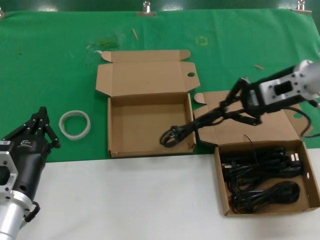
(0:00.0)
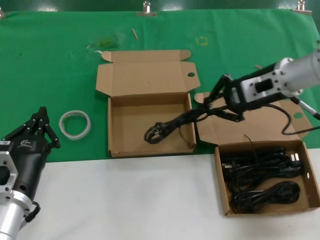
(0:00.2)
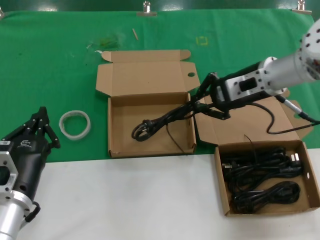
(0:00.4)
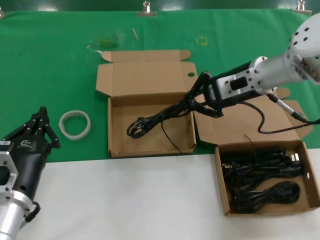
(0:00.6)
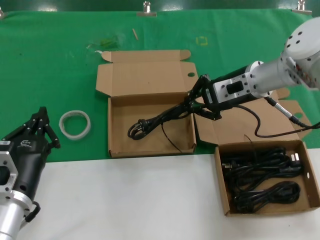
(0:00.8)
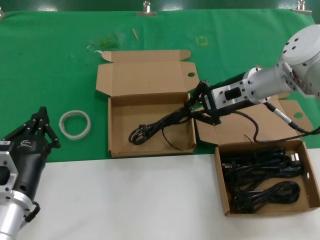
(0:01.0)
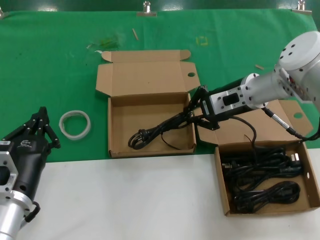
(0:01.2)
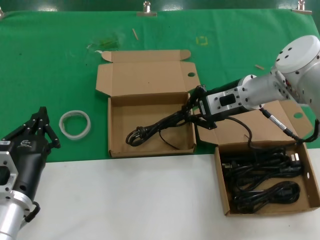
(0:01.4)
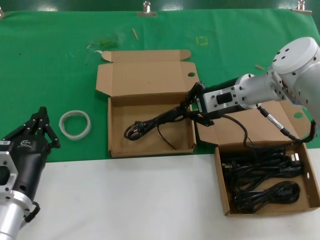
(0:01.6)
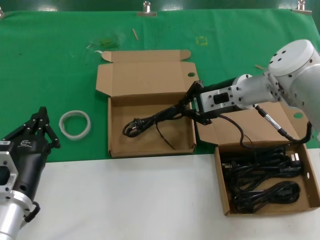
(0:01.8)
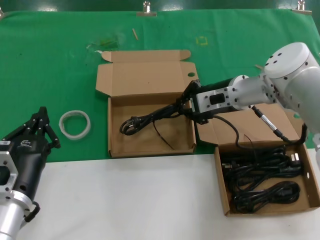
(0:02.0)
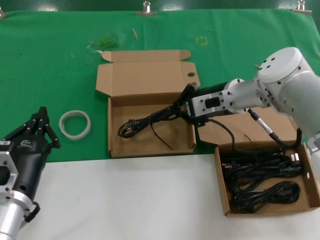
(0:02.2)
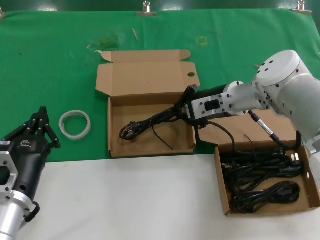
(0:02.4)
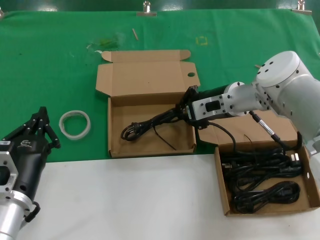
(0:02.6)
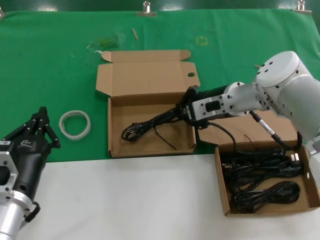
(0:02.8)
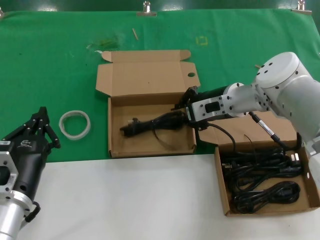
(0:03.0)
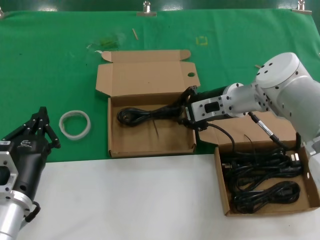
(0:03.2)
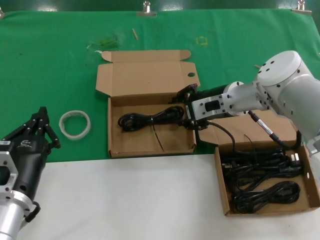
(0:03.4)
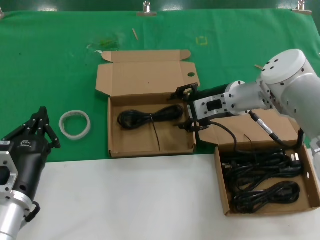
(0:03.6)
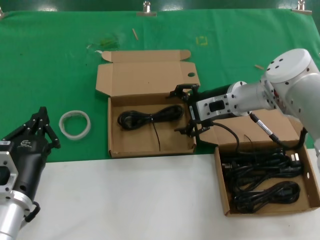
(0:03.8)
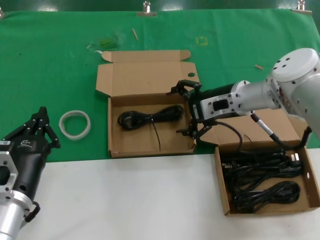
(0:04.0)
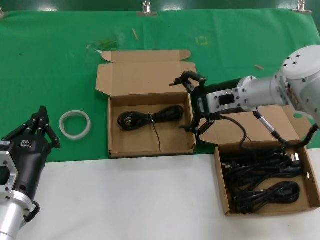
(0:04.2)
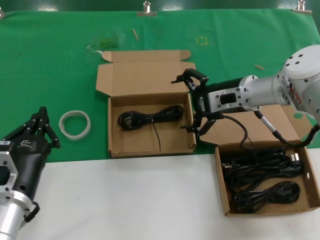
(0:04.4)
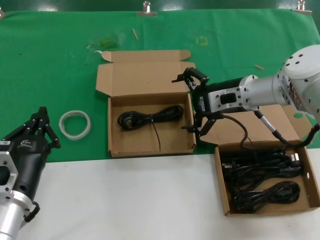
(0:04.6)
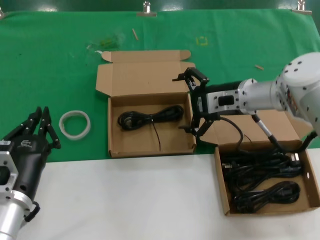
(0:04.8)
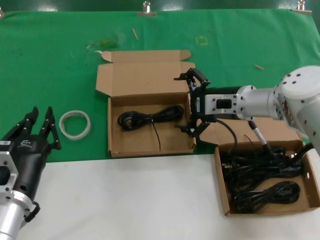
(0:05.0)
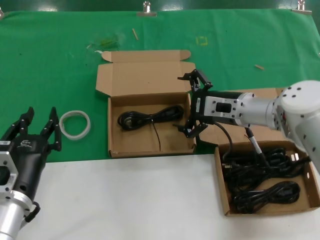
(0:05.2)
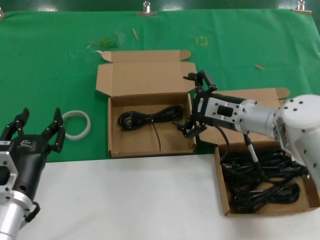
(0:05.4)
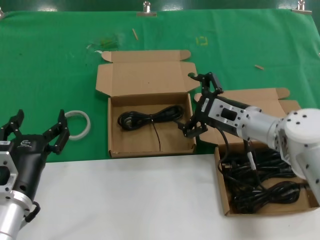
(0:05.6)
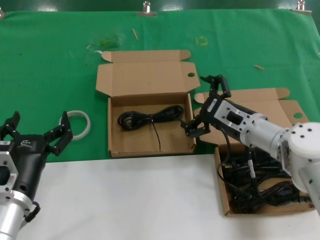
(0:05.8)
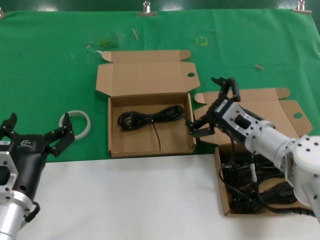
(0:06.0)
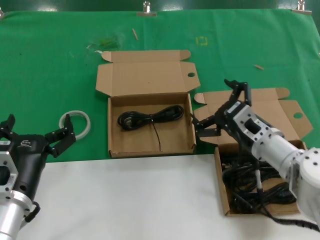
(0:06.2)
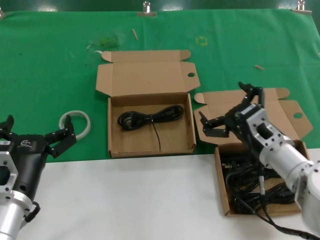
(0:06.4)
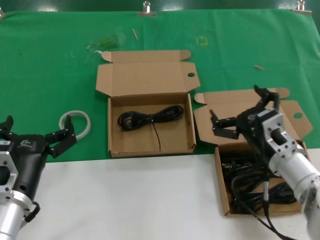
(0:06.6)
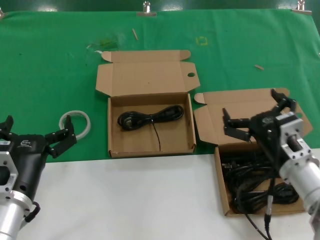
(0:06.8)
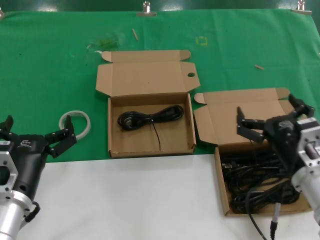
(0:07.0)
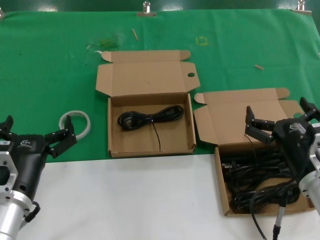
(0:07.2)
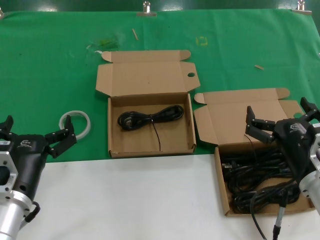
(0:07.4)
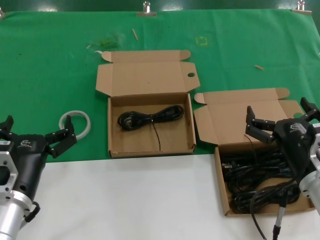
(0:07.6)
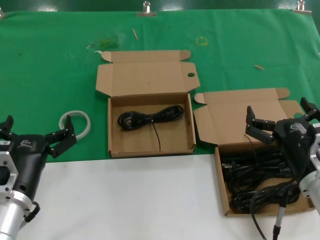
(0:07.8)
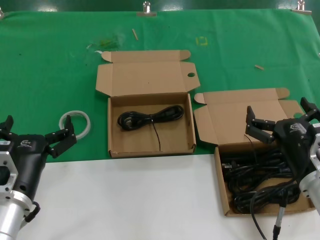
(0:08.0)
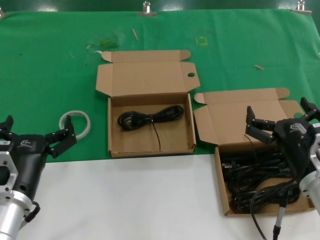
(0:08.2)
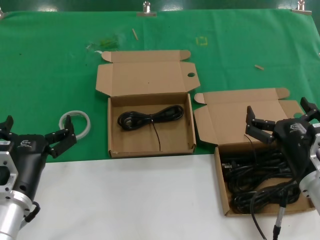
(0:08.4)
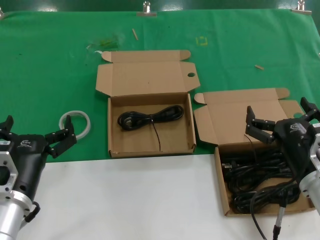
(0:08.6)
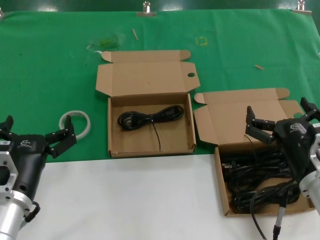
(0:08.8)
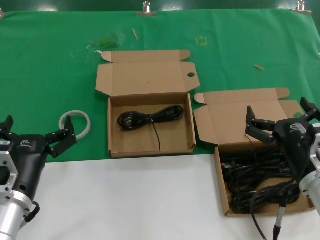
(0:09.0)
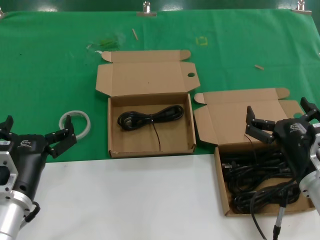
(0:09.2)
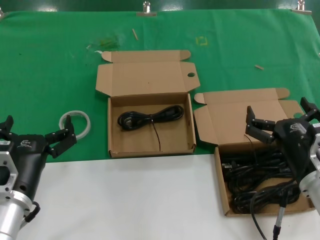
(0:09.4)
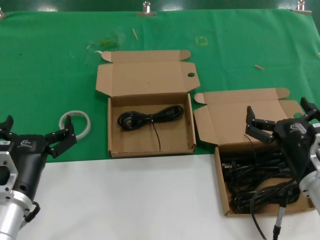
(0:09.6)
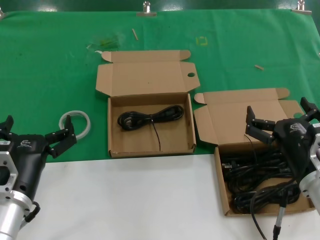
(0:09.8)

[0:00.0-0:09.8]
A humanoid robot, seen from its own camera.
Task of the whole recording: take the parts from the box containing them and put them into an empty box.
Step, 0:00.0 to 0:03.0: Place the data cable in the another box.
0:00.0 to 0:01.4: The right hand is displaced to the left and downward by some 10 cm.
0:01.4 to 0:04.2: The hands stay close to where they were, moving slightly.
0:04.2 to 0:05.6: The right hand goes approximately 10 cm downward and backward.
0:05.6 to 0:07.0: The right hand shifts approximately 15 cm backward.
0:07.0 to 0:08.4: The hands make only small movements.
0:08.4 to 0:09.8: The two hands keep their place.

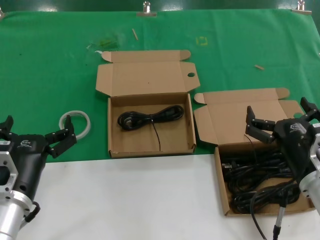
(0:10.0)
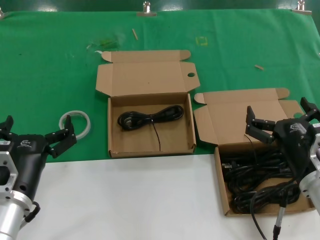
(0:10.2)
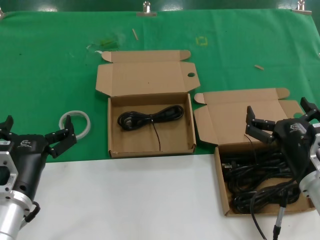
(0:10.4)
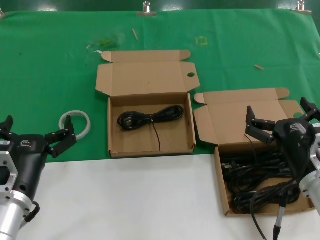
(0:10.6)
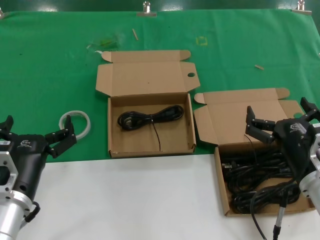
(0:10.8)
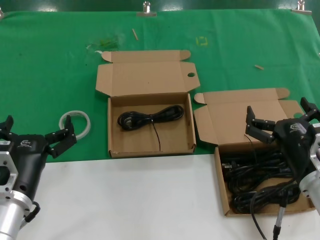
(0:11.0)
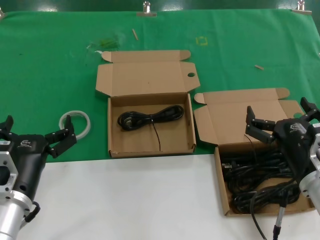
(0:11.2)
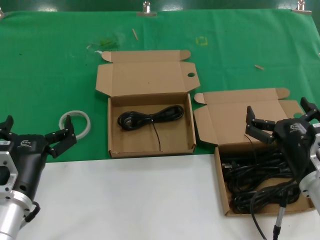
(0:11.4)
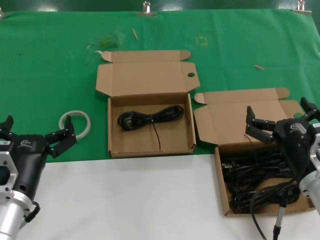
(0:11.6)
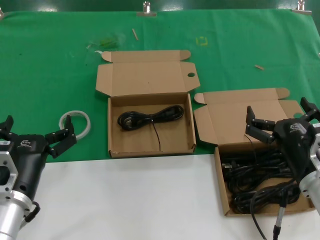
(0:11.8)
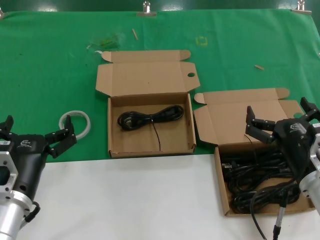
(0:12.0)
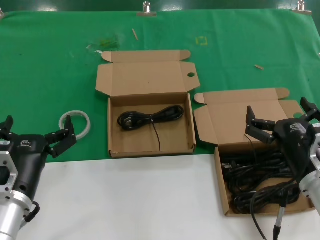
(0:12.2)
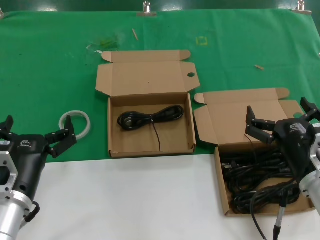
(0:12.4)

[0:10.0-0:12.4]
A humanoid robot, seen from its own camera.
Task of the whole recording: take the parts from the box containing them and put them into an empty box.
0:10.0 to 0:12.4: Both hands stay put.
